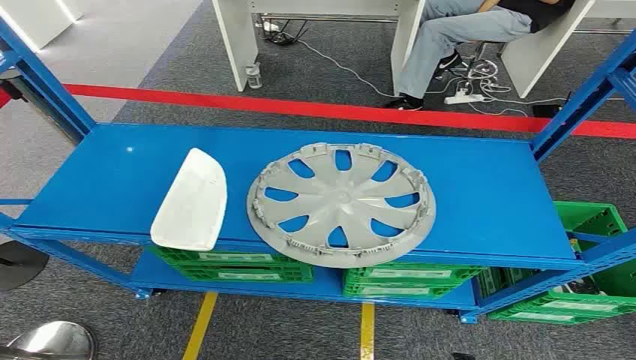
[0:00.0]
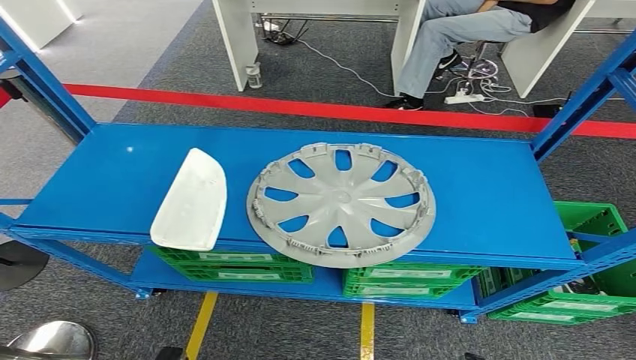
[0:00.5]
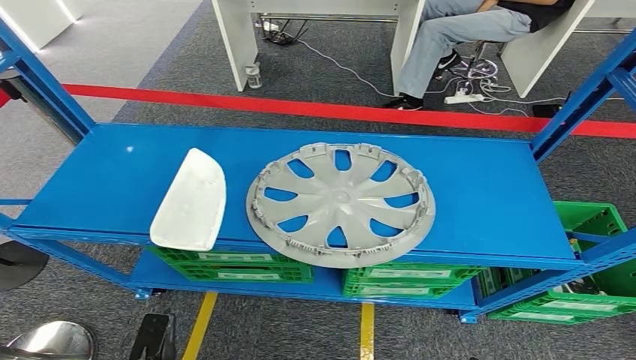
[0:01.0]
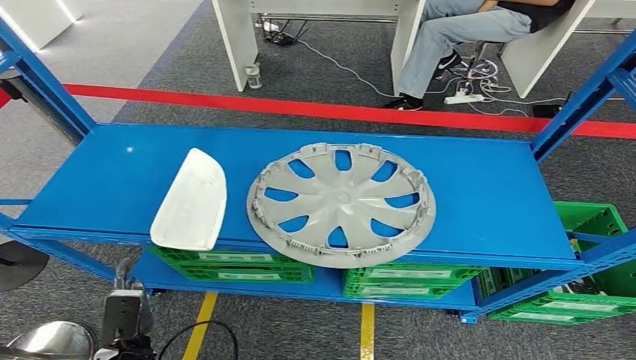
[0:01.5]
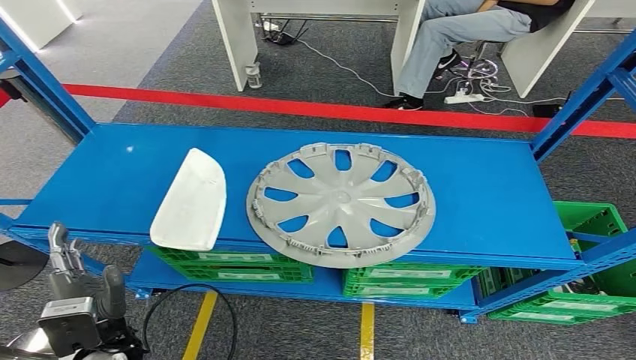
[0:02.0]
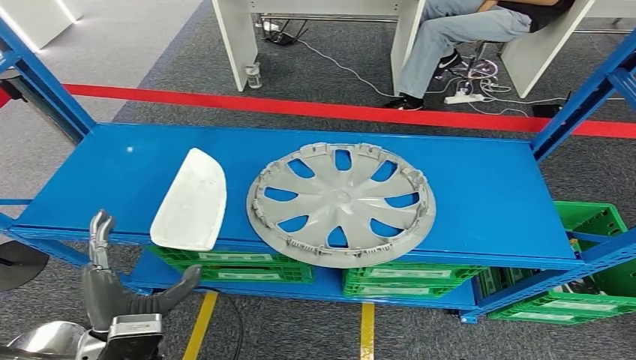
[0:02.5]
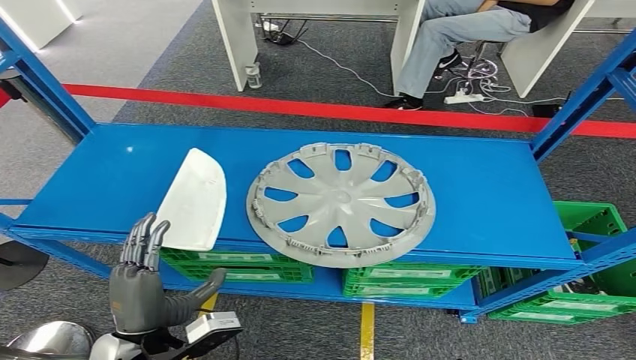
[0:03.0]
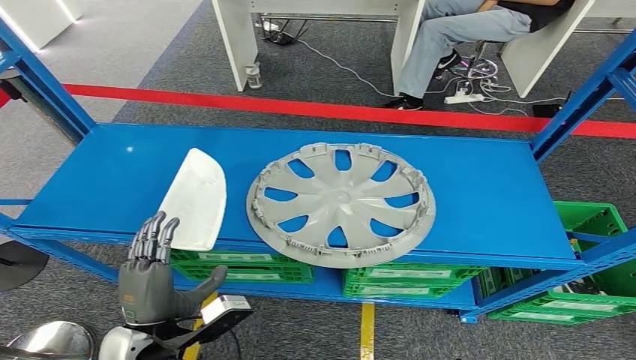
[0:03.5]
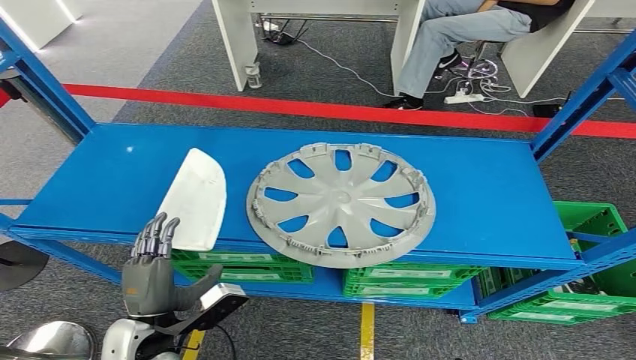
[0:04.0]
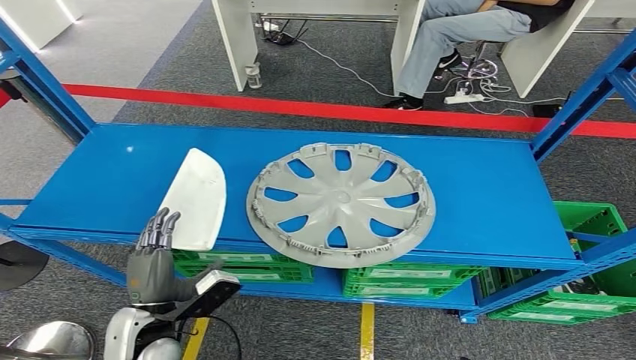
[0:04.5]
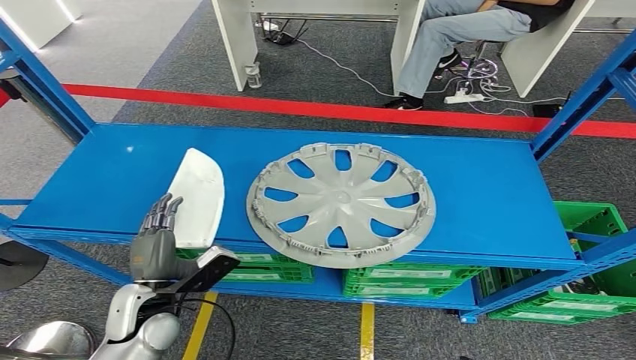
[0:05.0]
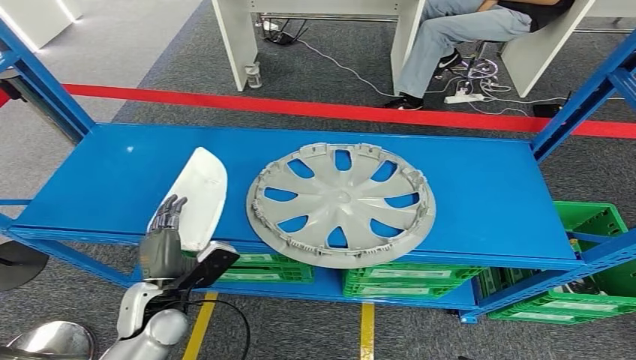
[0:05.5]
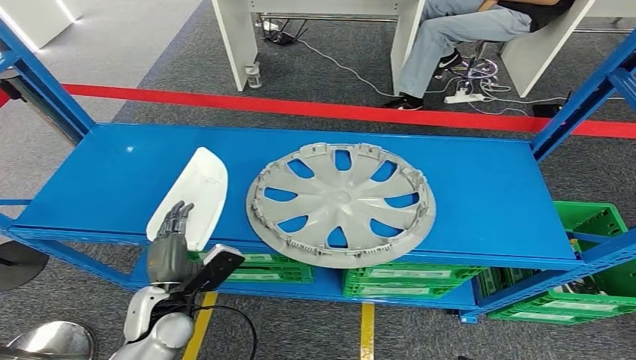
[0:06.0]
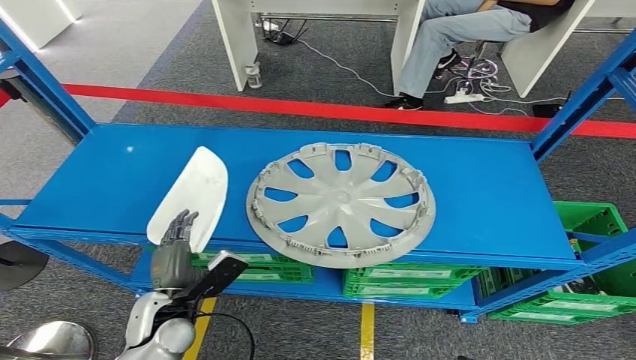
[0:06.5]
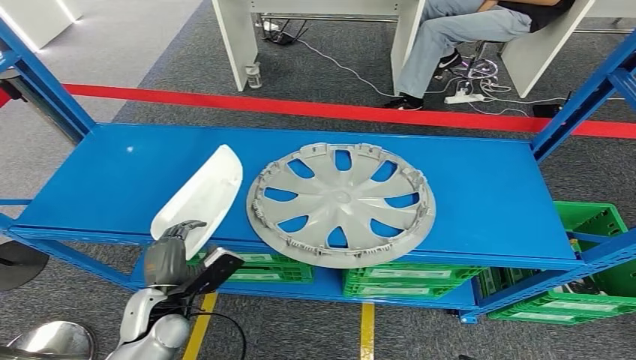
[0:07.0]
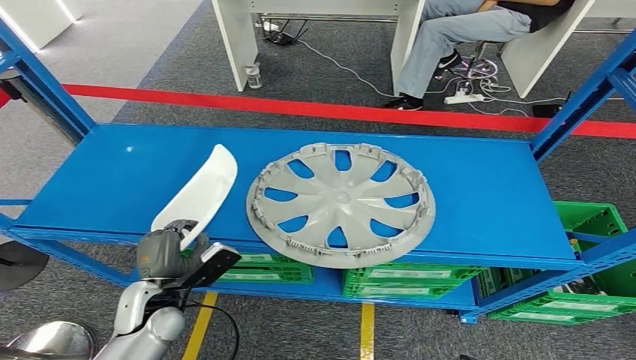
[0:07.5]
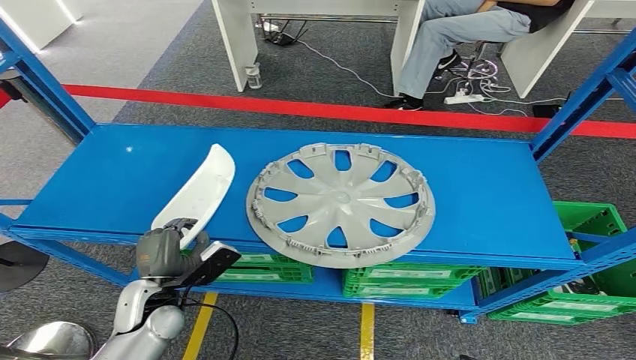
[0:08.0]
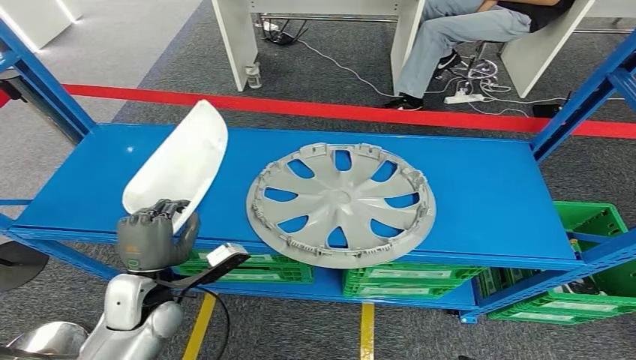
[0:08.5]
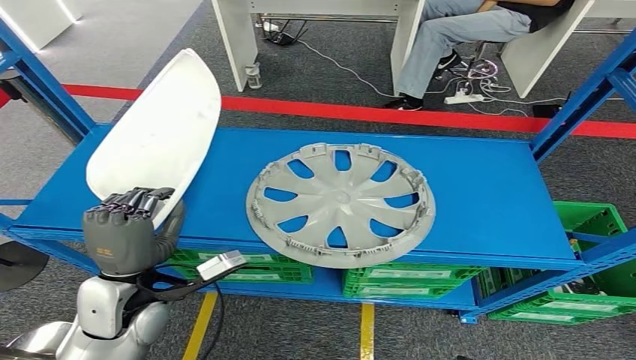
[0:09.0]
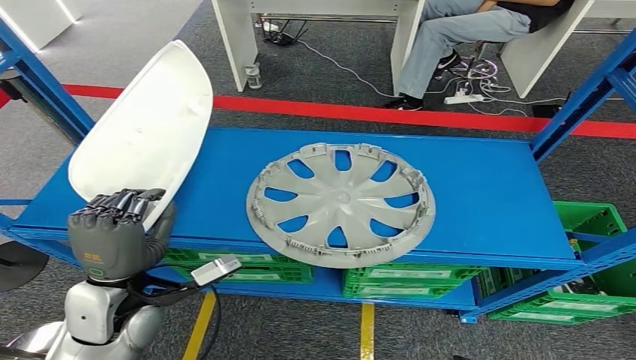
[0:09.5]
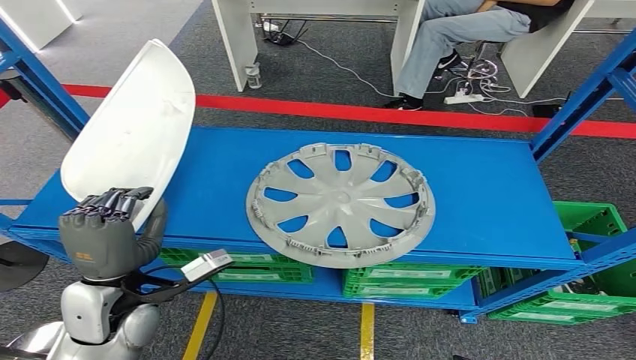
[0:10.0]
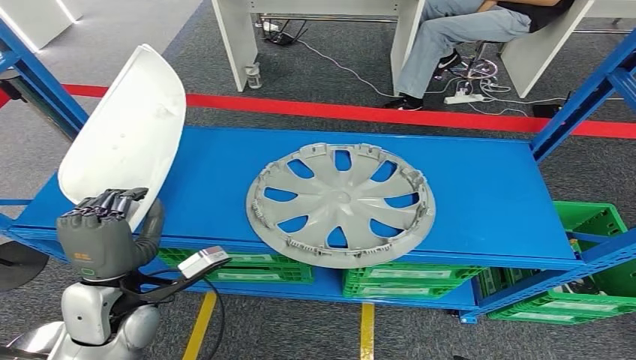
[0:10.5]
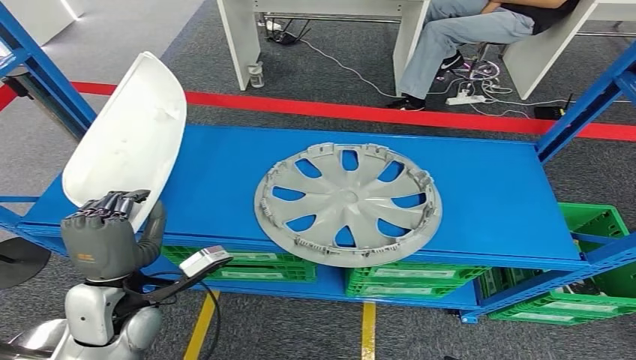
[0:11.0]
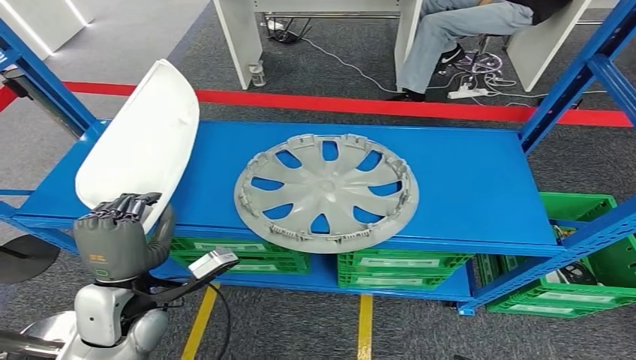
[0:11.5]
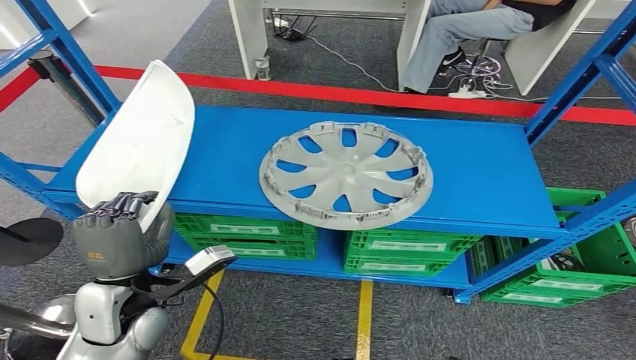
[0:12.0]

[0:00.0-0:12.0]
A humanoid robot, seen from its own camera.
0:04.0 to 0:06.0: The left hand heads forward, covering roughly 5 cm.
0:06.0 to 0:08.0: The hands move only a little.
0:08.0 to 0:10.0: The left hand travels upward by about 10 cm.

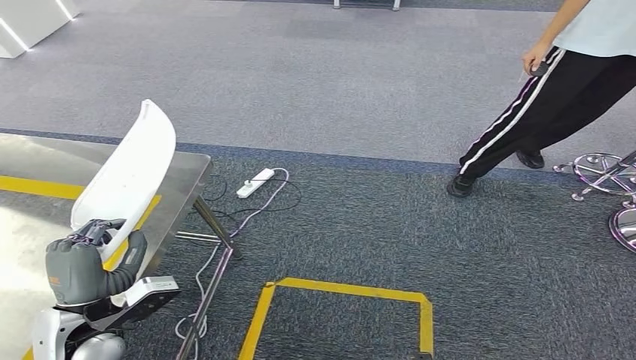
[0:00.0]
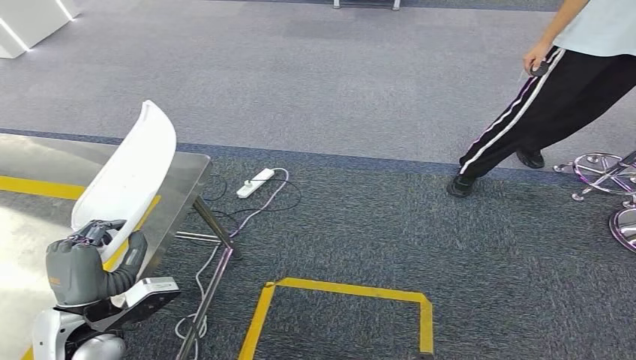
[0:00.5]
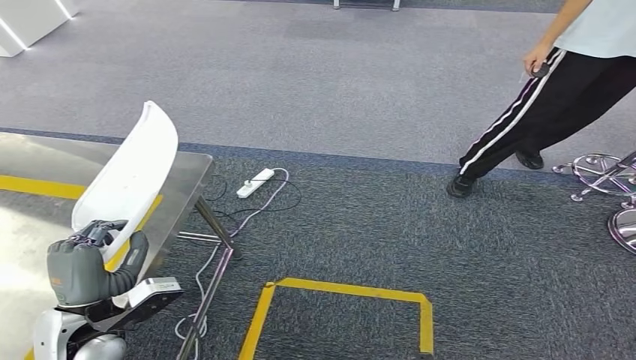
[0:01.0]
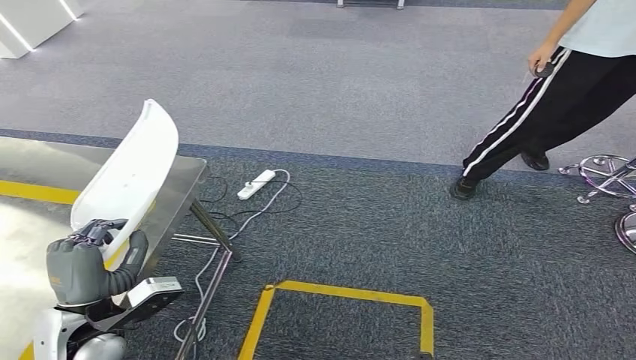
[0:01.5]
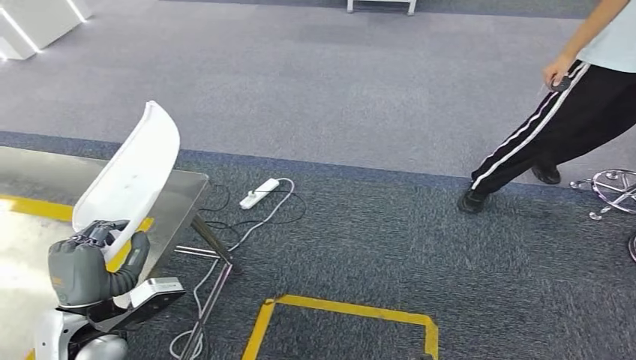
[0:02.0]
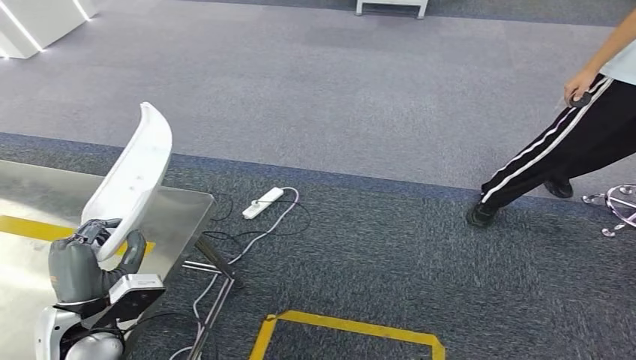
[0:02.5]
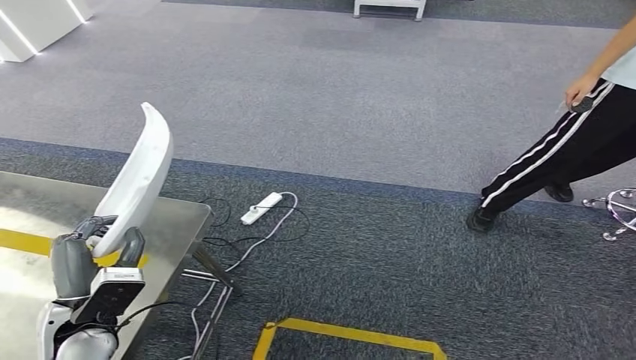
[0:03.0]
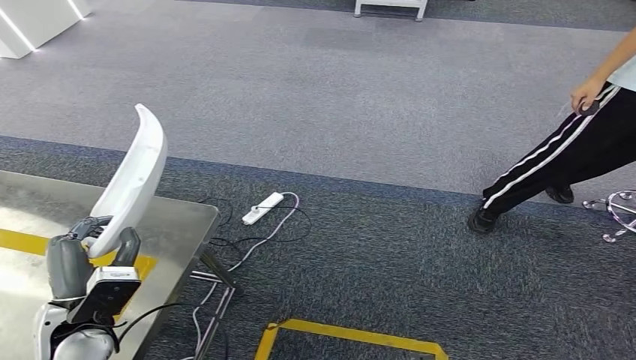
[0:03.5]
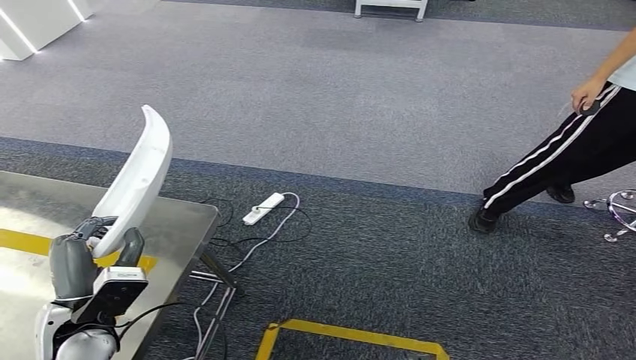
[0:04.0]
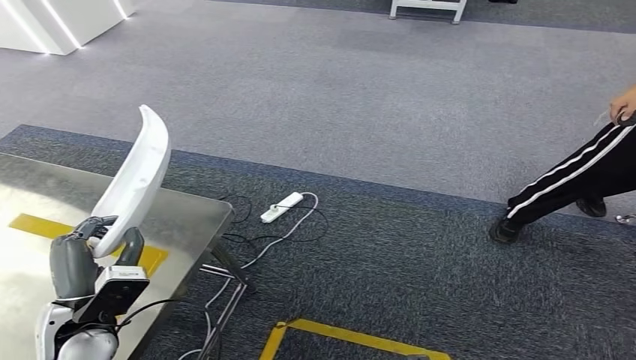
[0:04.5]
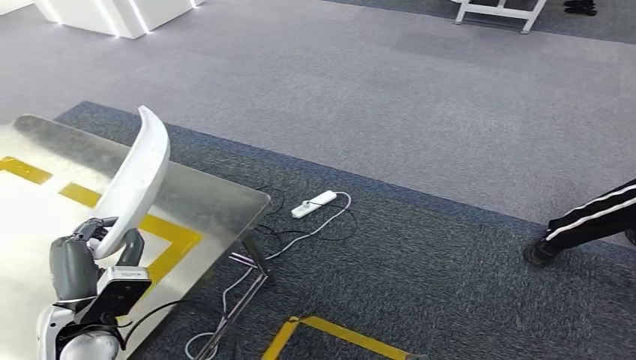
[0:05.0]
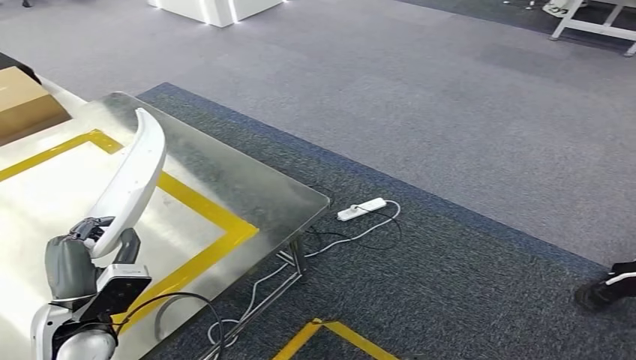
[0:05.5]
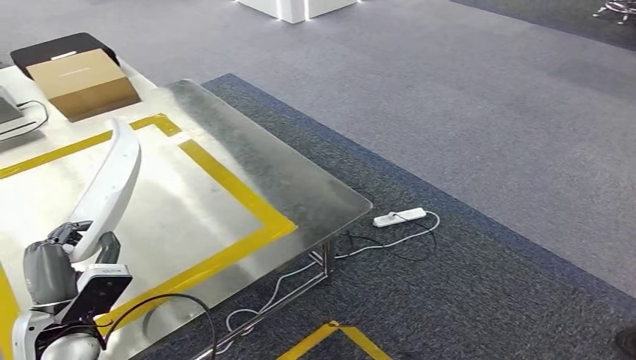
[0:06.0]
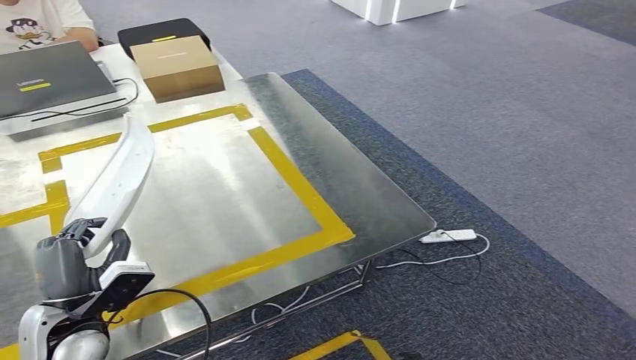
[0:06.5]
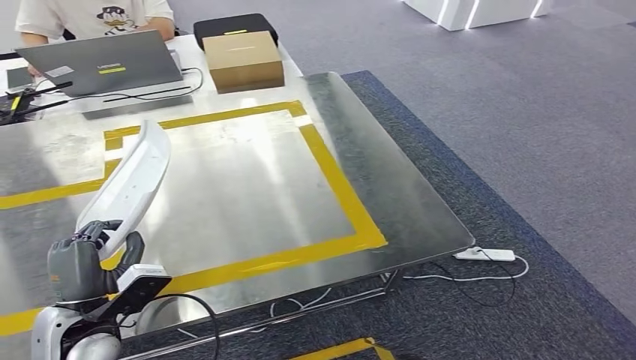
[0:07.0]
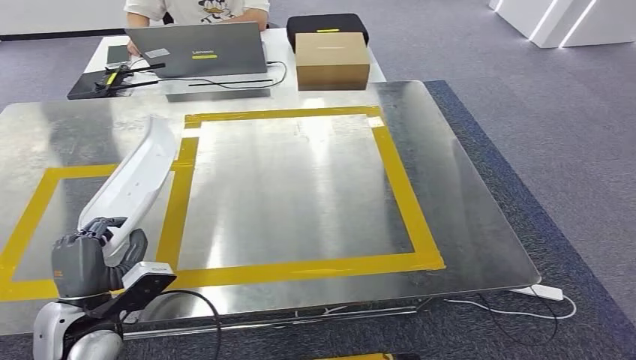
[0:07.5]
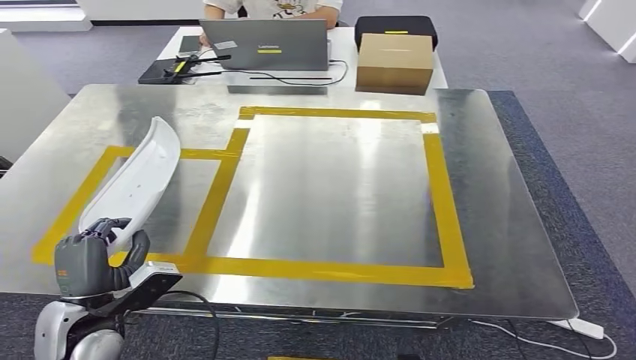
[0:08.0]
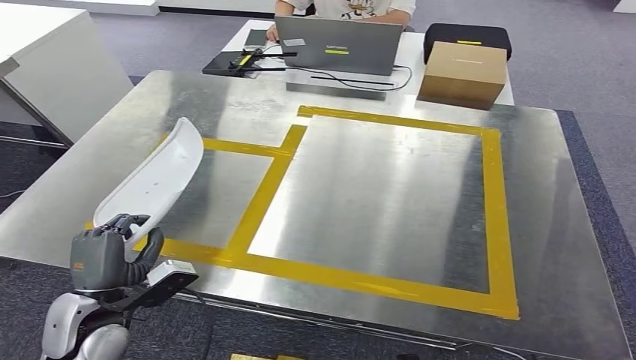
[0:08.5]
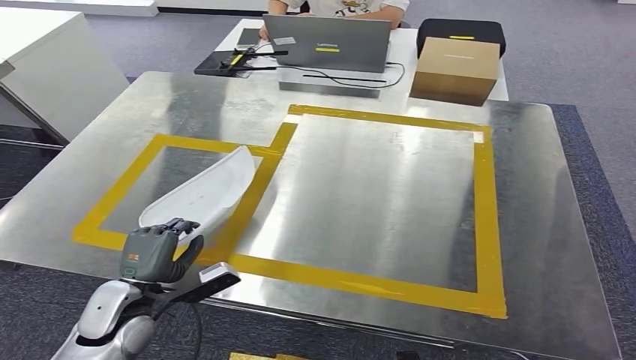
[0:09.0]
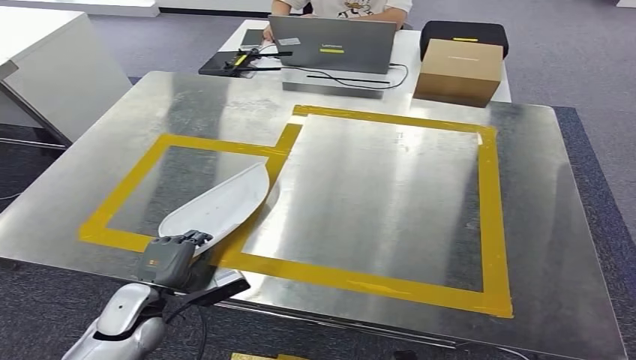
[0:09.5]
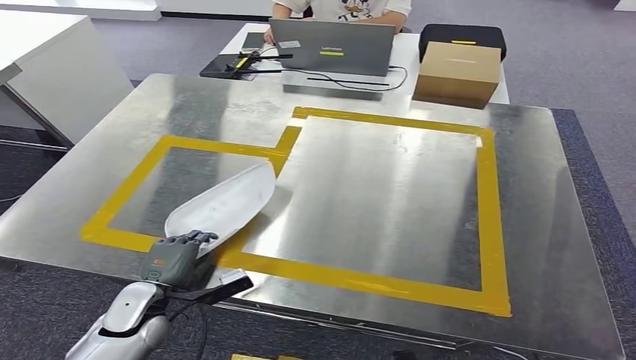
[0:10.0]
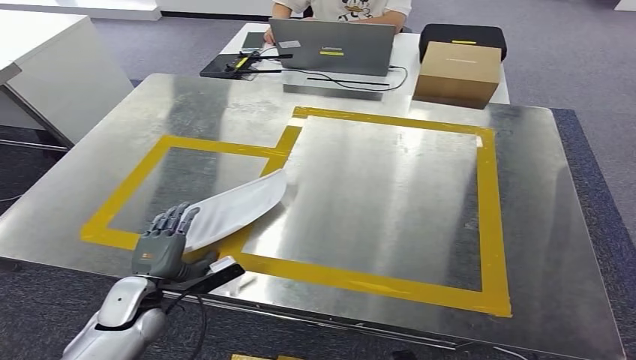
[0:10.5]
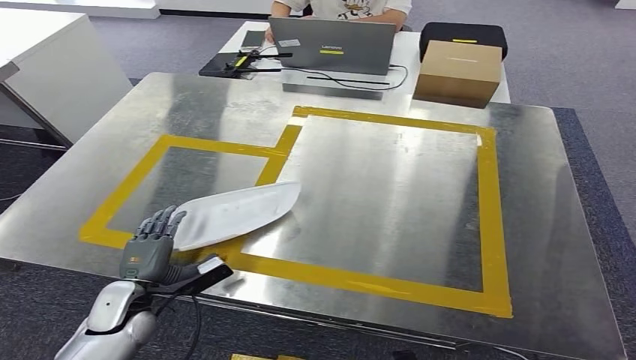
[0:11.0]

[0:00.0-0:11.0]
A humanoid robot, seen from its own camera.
Step, 0:00.0 to 0:07.5: Move the small component to the workbench.
0:09.0 to 0:11.0: The left hand moves downward, roughly 5 cm.
